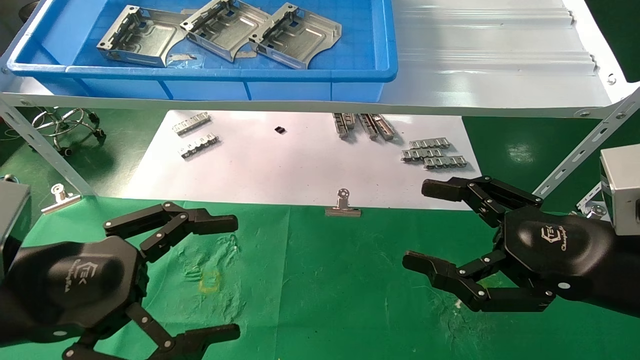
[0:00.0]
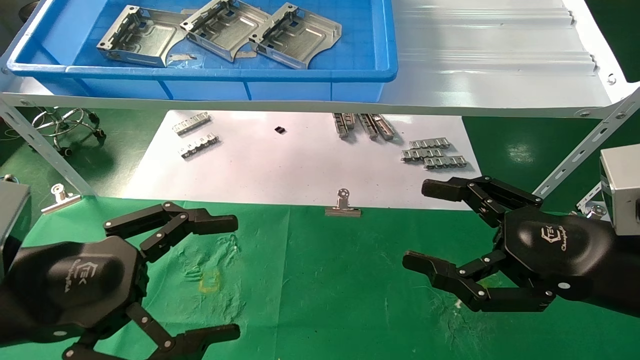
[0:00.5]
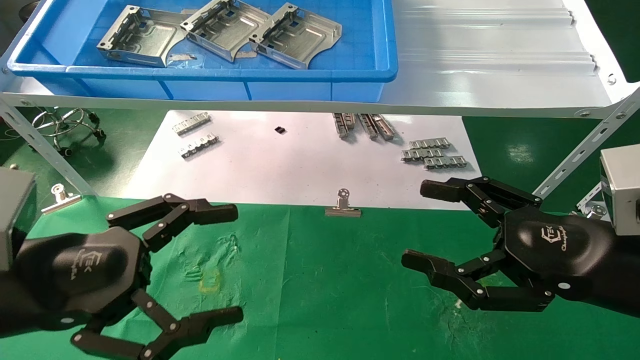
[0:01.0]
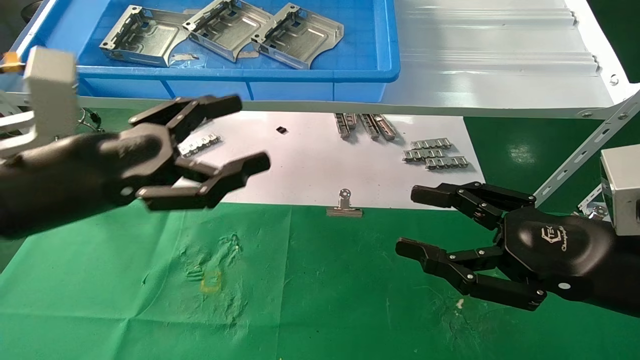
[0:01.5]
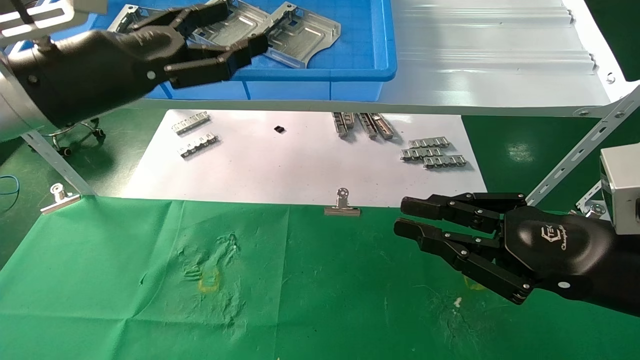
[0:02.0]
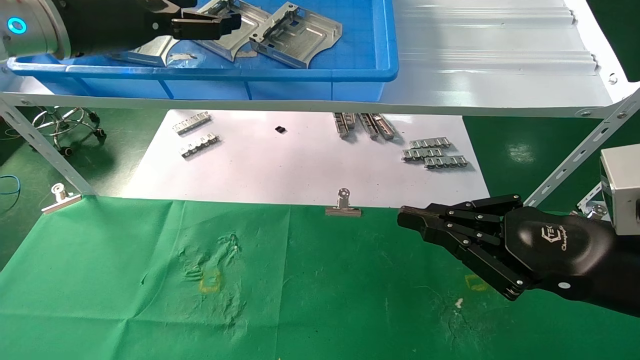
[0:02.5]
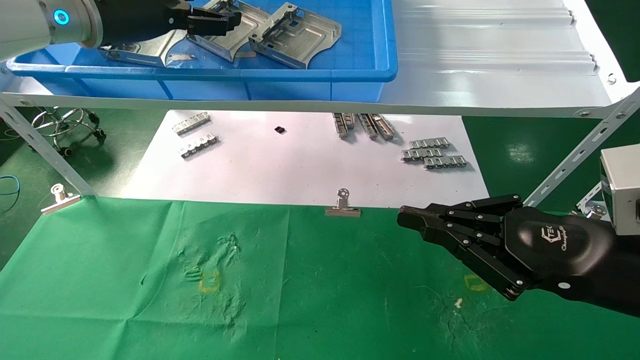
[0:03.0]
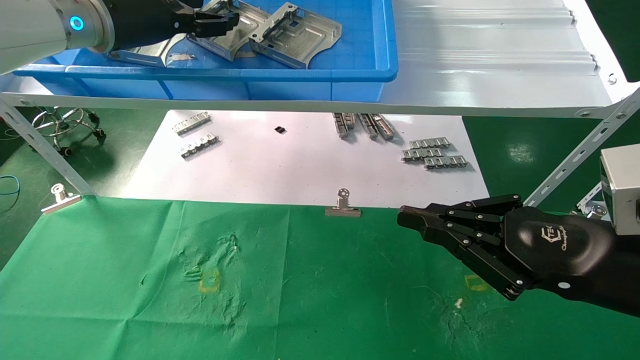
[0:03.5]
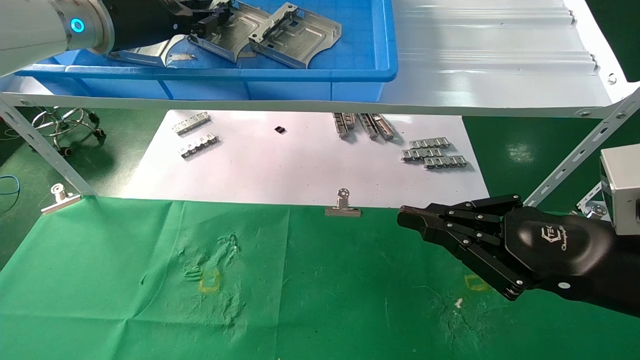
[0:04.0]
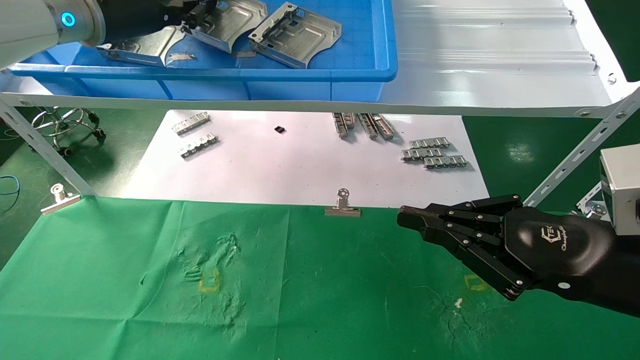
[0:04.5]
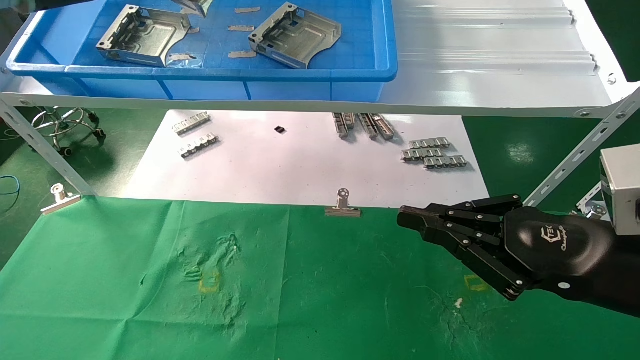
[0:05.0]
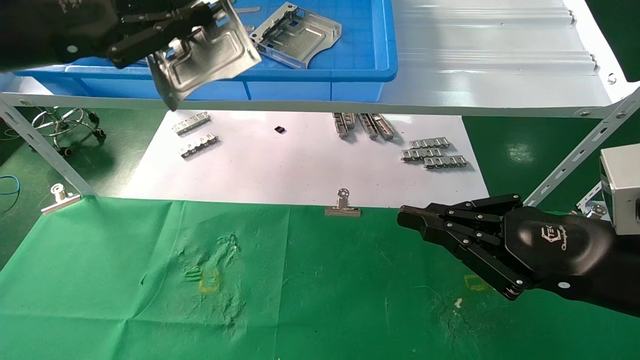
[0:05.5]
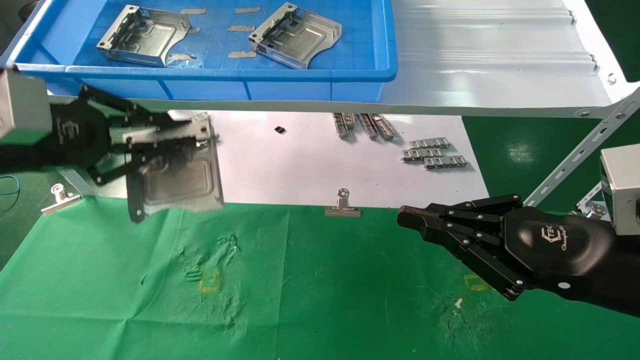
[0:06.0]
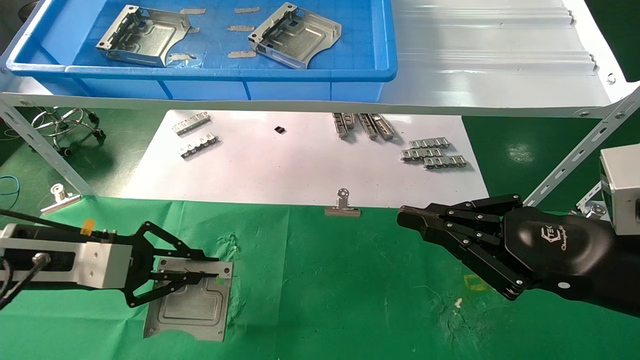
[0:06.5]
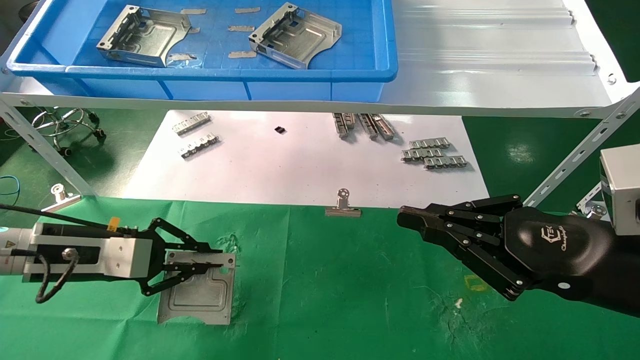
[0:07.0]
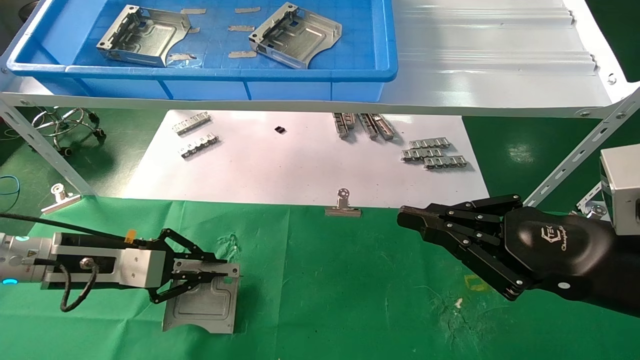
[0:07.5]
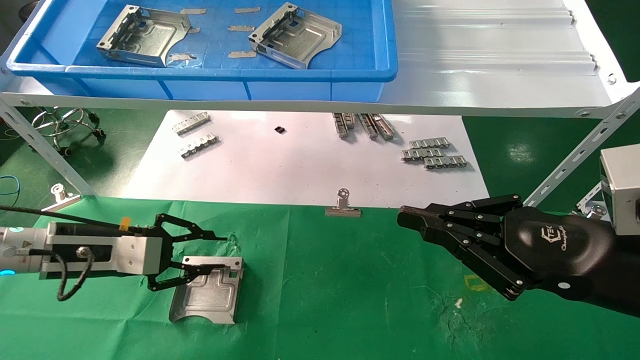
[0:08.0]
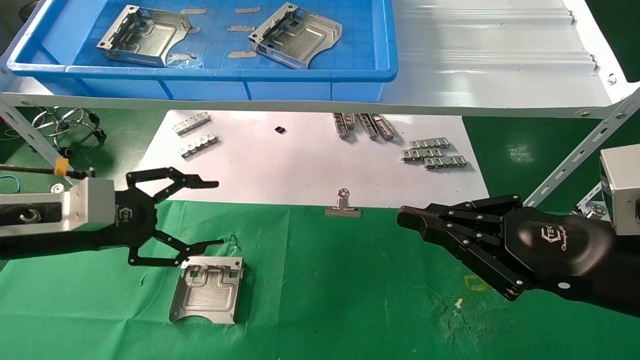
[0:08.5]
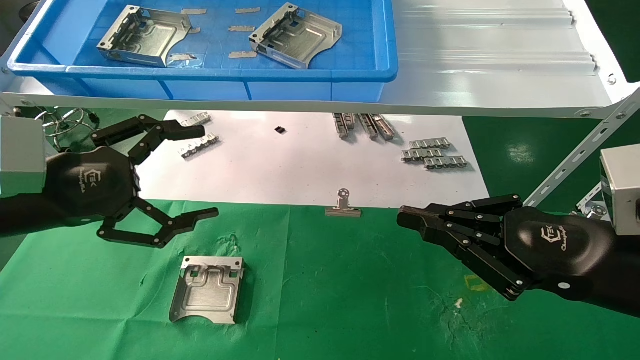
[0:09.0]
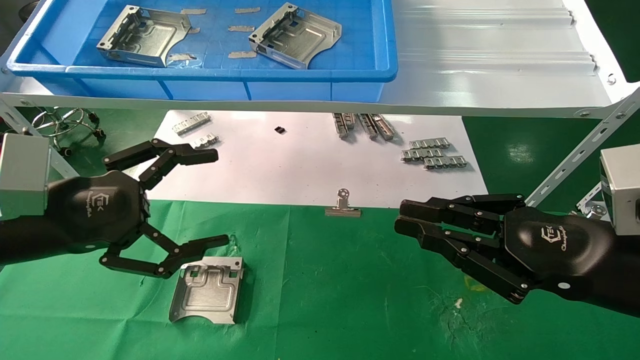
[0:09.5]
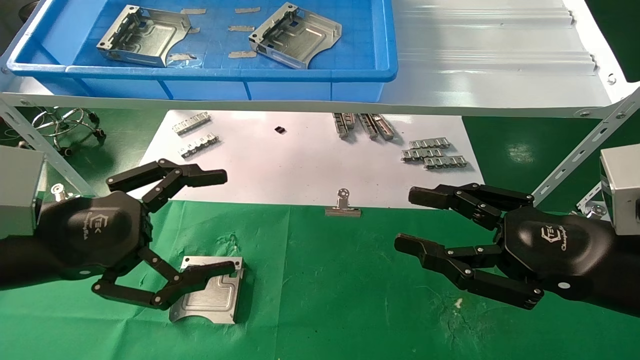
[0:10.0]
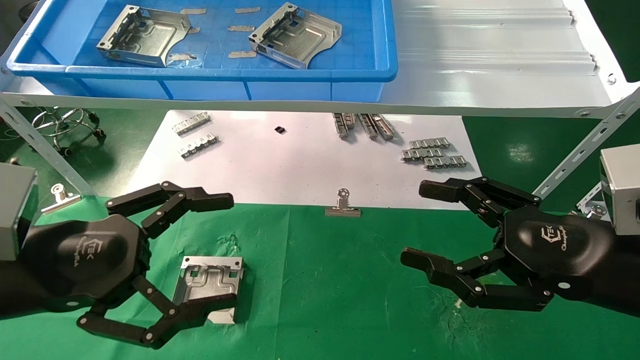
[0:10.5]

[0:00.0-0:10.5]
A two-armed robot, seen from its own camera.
Task of the whole recording: use the mechanical arm to pick up the parts and place them on the table.
Step, 0:01.5 to 0:04.0: Pick up the hard drive bracket from the feeding area.
Step, 0:04.5 to 0:07.5: Place the hard drive bracket into the box.
0:00.0 to 0:02.0: The right gripper closes its fingers. The left gripper is displaced upward and forward by roughly 20 cm.
0:02.0 to 0:04.0: The left gripper travels forward and upward by approximately 15 cm, and closes its fingers.
0:04.0 to 0:06.5: The left gripper heads downward and backward, covering about 25 cm.
0:06.5 to 0:08.5: The left gripper opens up.
0:08.5 to 0:10.5: The left gripper goes roughly 10 cm backward, and opens, while the right gripper opens its fingers.
